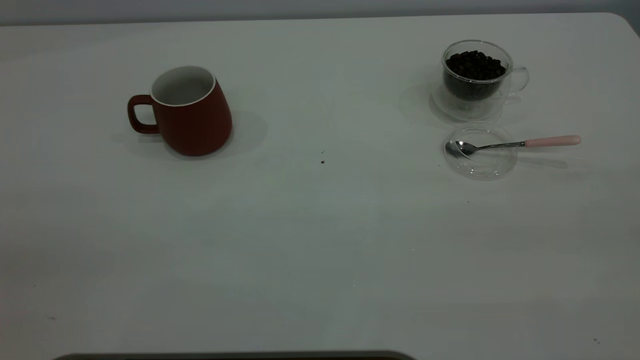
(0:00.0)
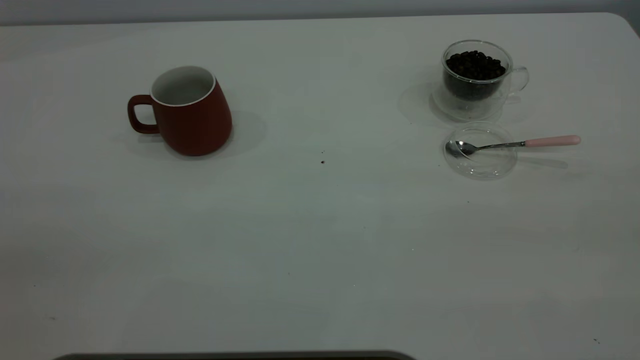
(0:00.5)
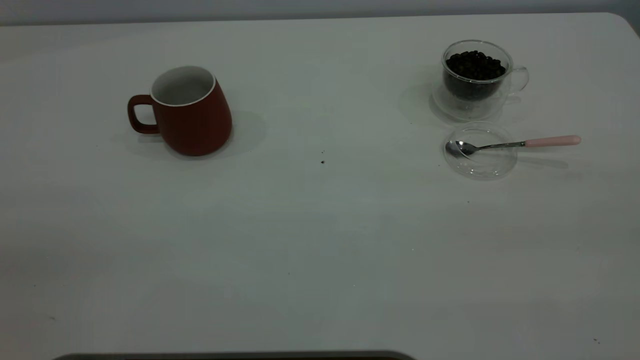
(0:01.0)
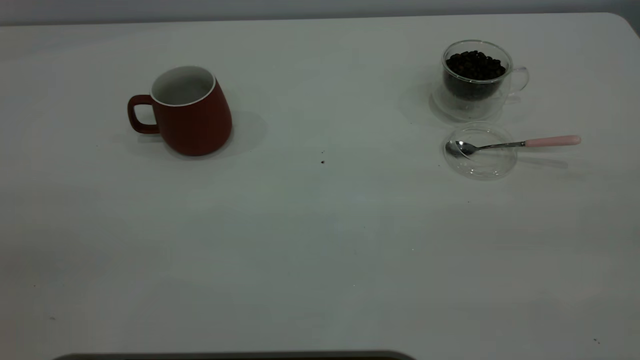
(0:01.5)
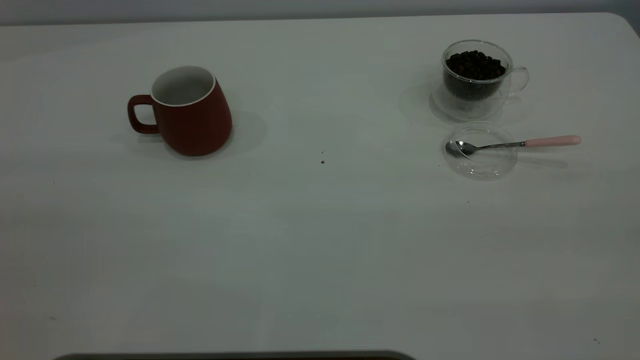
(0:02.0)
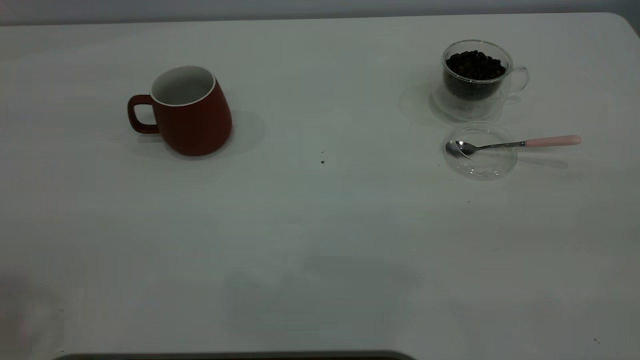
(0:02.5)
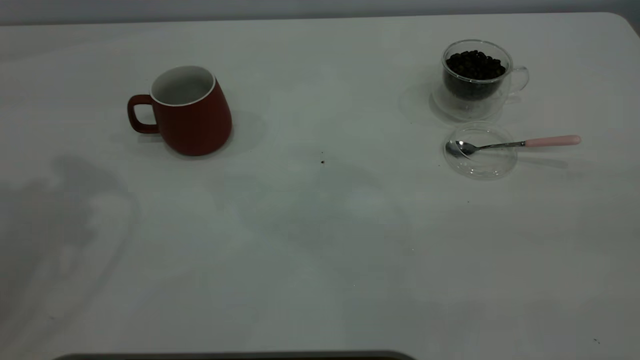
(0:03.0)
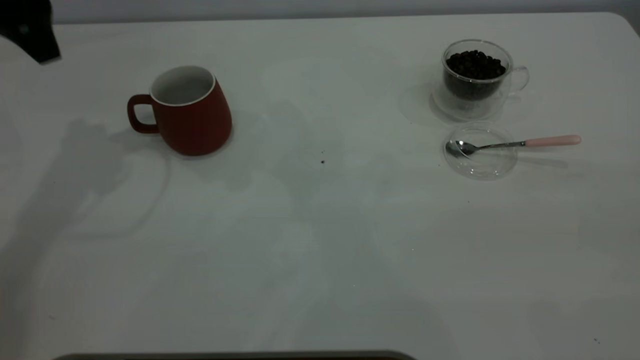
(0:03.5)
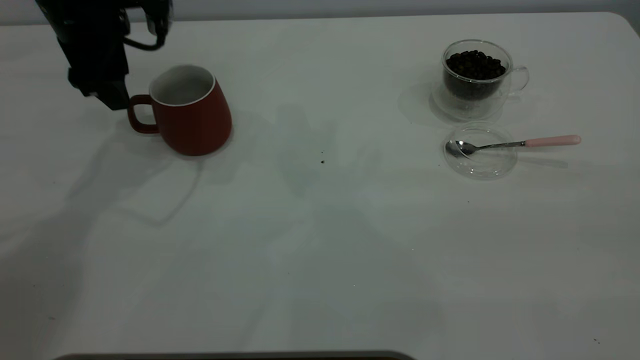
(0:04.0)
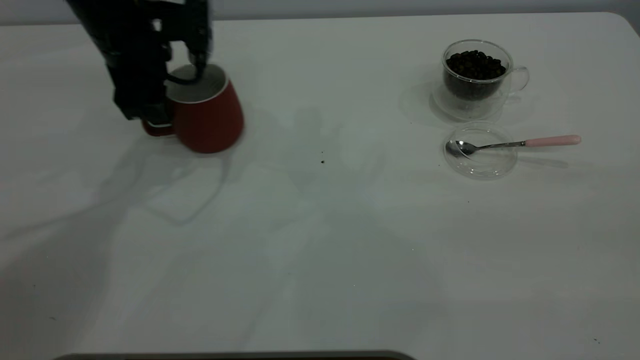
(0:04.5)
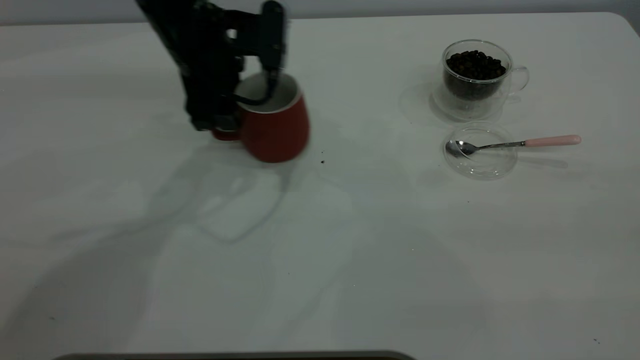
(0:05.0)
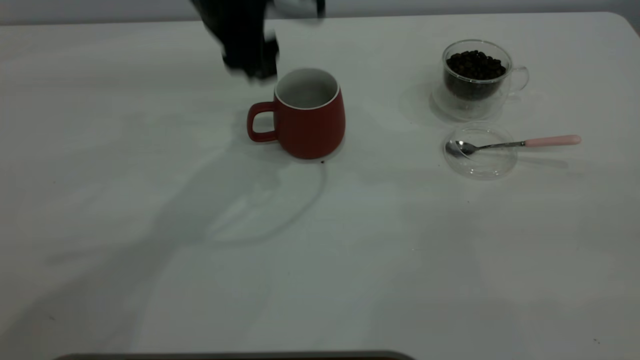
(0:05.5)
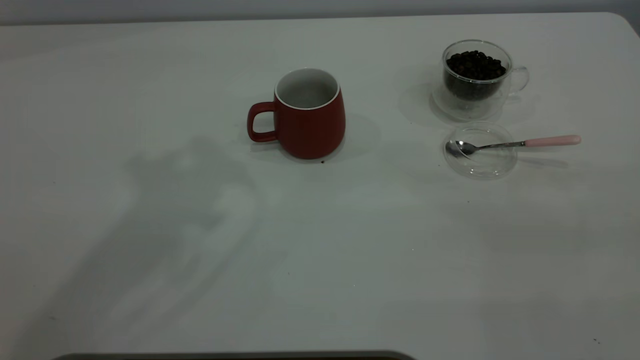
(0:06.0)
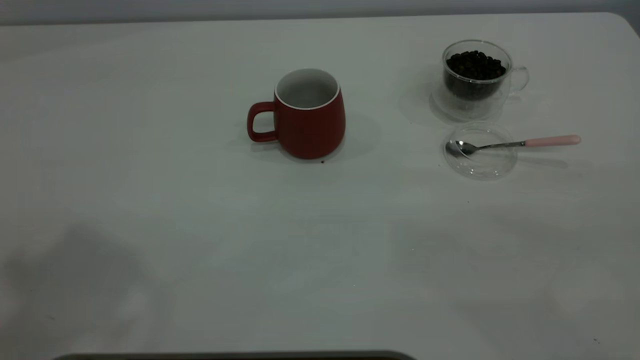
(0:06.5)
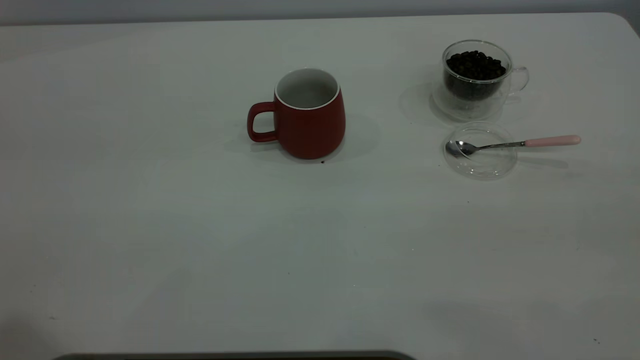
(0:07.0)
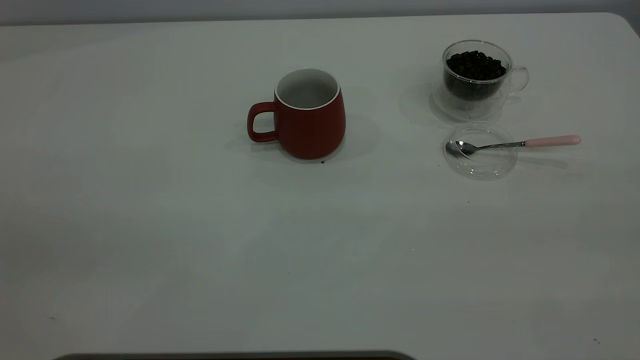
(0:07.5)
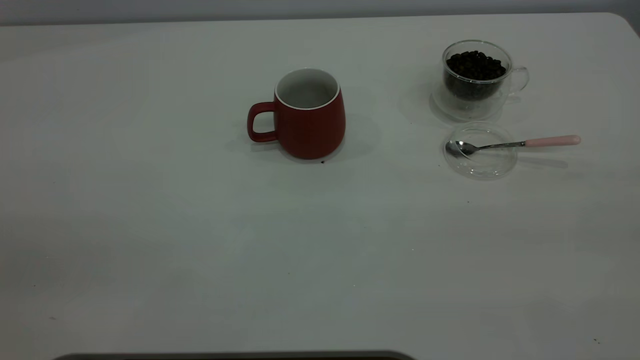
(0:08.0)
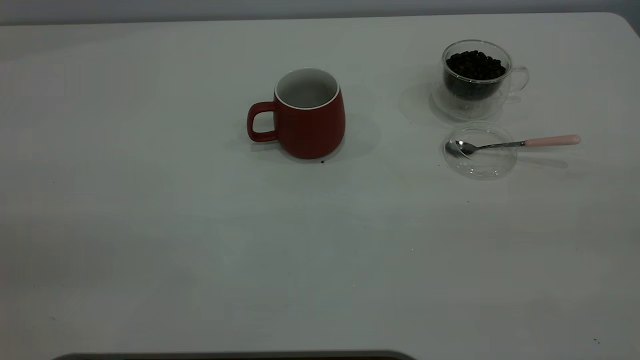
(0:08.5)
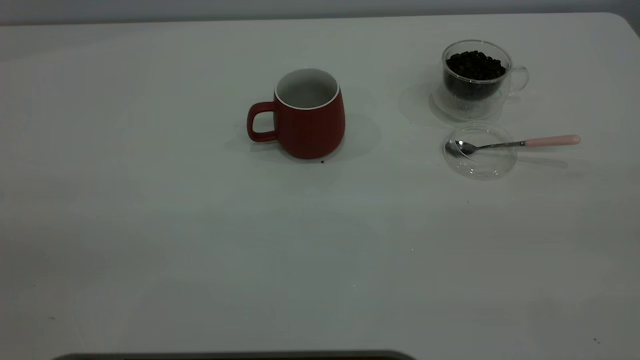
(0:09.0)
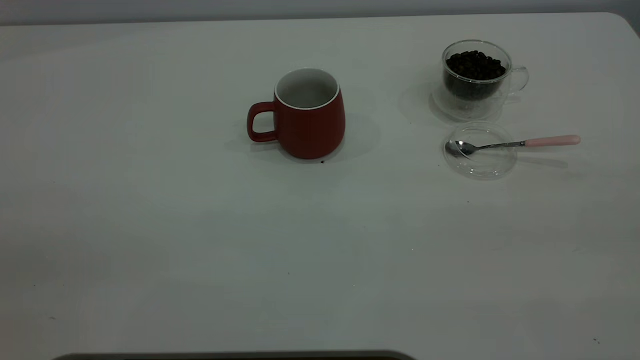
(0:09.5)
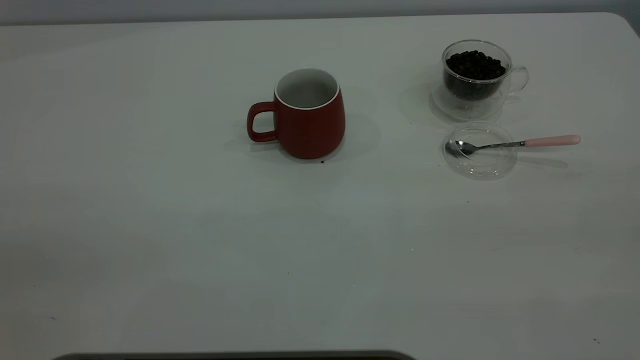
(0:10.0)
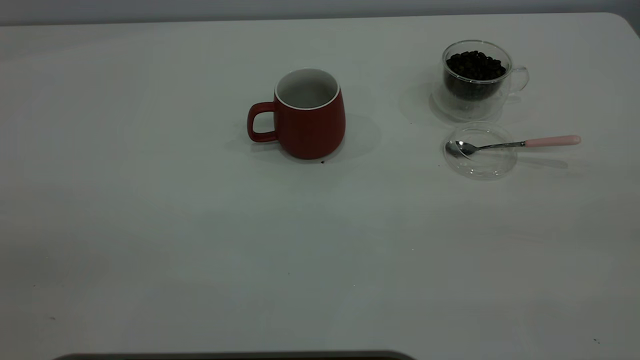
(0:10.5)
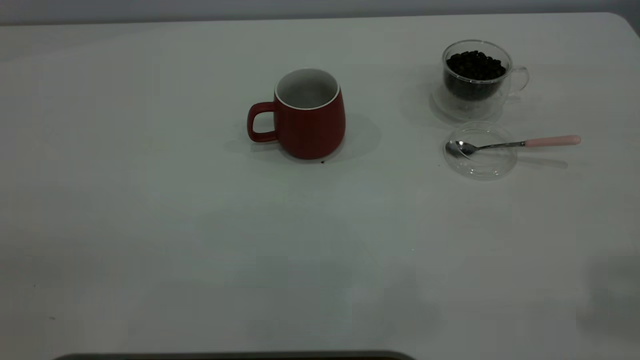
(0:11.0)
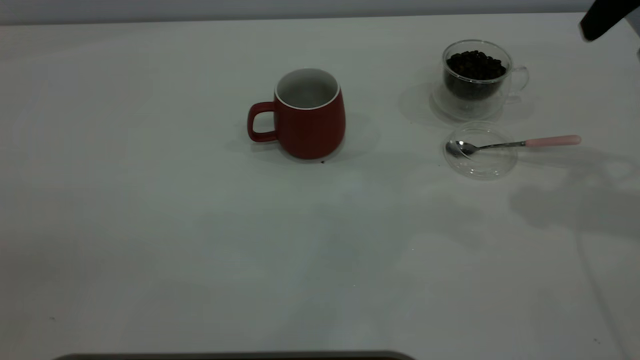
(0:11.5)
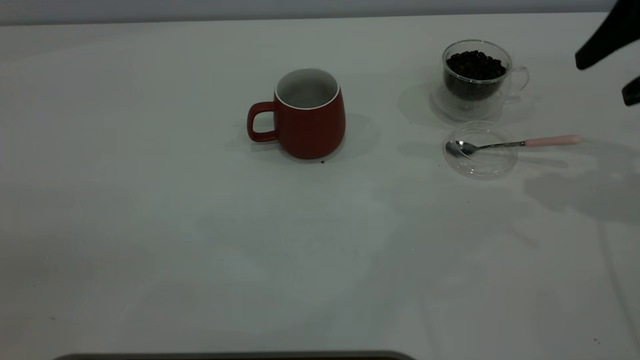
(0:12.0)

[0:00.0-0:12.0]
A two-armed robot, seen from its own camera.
Task of the whole recording: the left gripper place the red cup in the center of the table, the right gripper take the pink spoon from the cup lid and scoop out the coffee beans from the coffee cup and put them into the red cup, the right gripper put the spoon back into the cup lid.
Step, 0:00.0 to 0:05.0: Move the cup to the center of view.
0:02.0 to 0:04.0: The left gripper goes roughly 50 cm forward and downward, and opens.
0:04.0 to 0:06.0: The left gripper is displaced upward and backward by some 30 cm.
0:10.0 to 0:12.0: The right gripper shifts about 35 cm forward and downward.

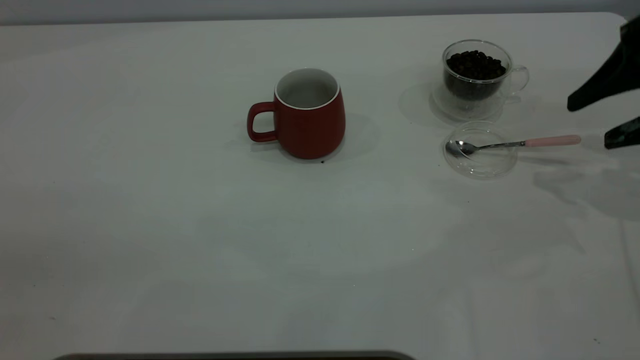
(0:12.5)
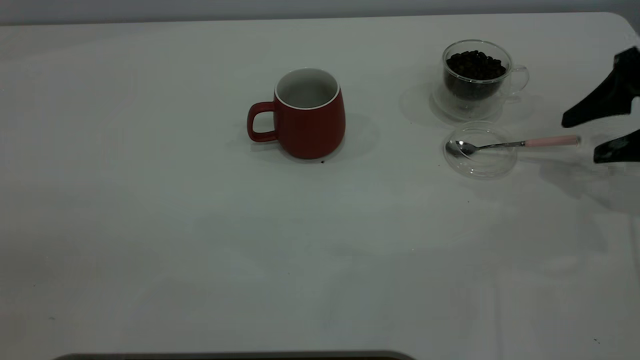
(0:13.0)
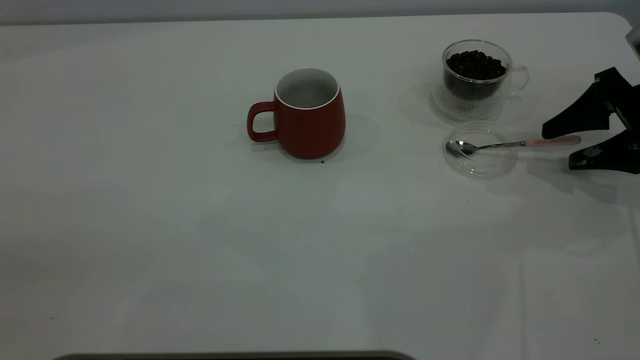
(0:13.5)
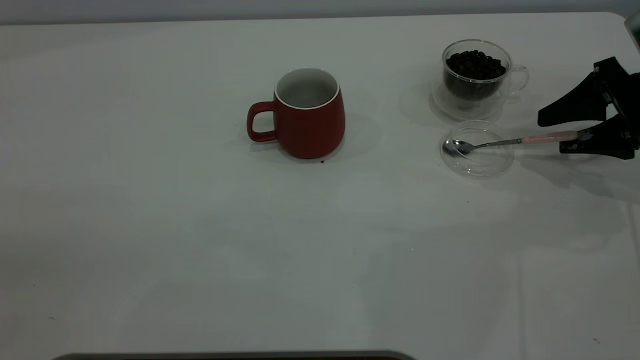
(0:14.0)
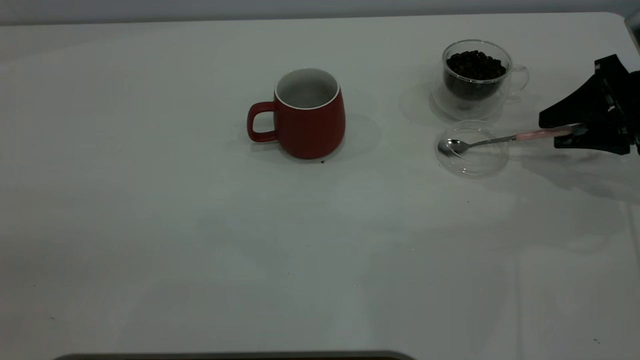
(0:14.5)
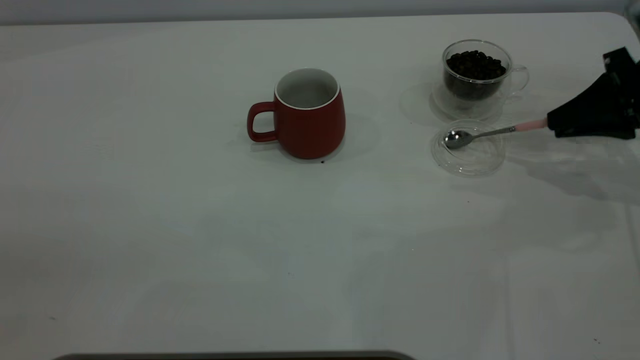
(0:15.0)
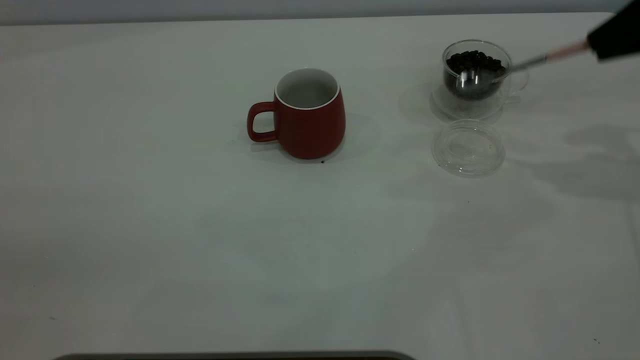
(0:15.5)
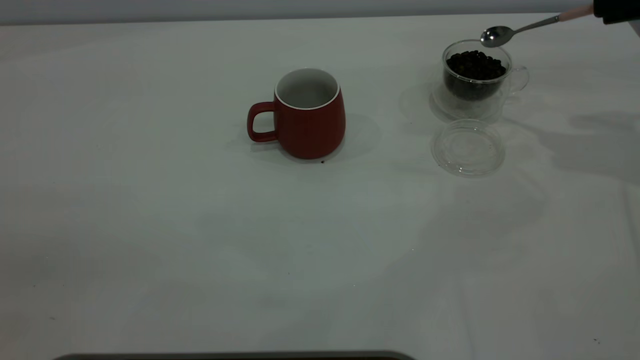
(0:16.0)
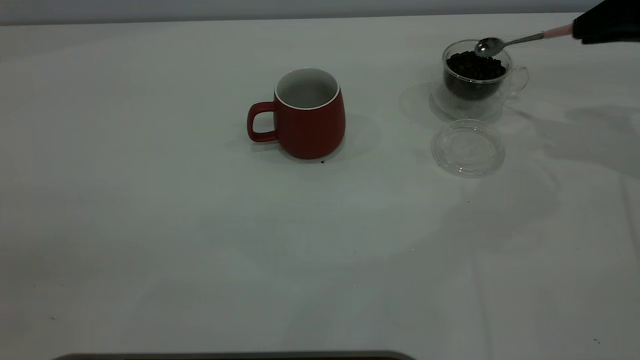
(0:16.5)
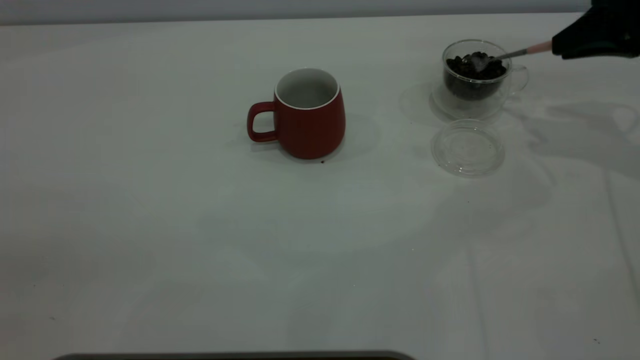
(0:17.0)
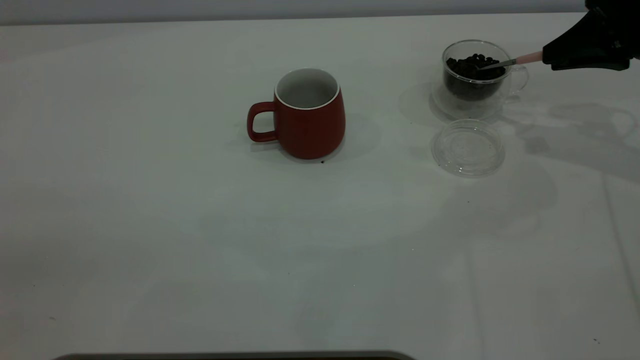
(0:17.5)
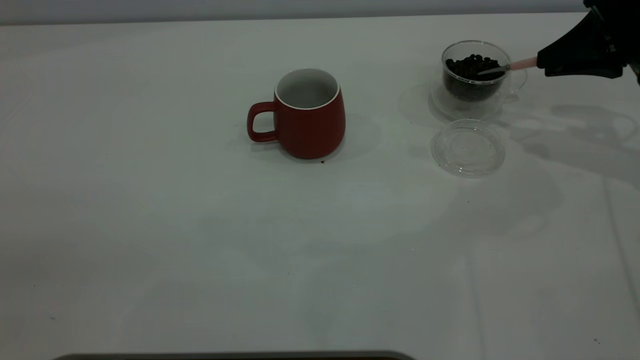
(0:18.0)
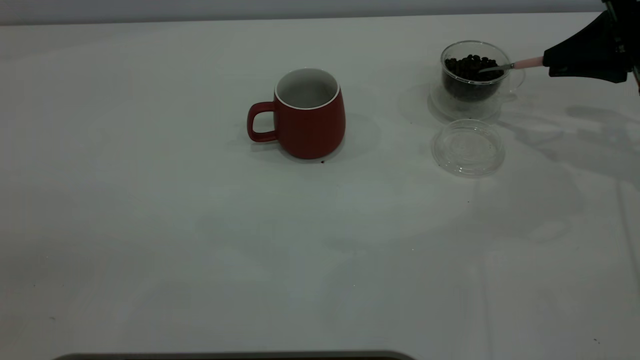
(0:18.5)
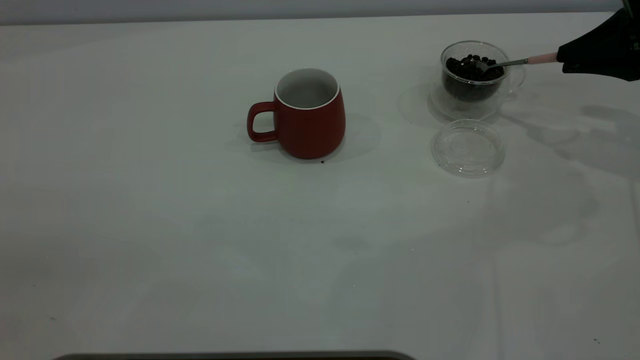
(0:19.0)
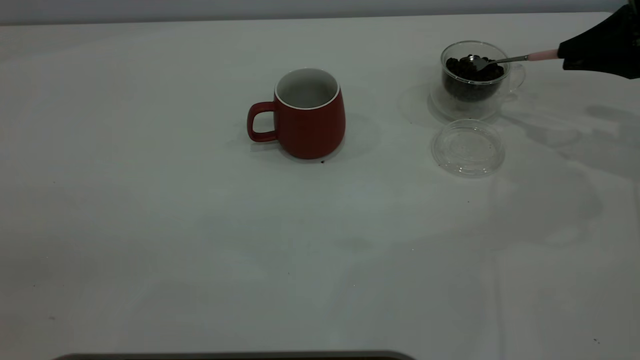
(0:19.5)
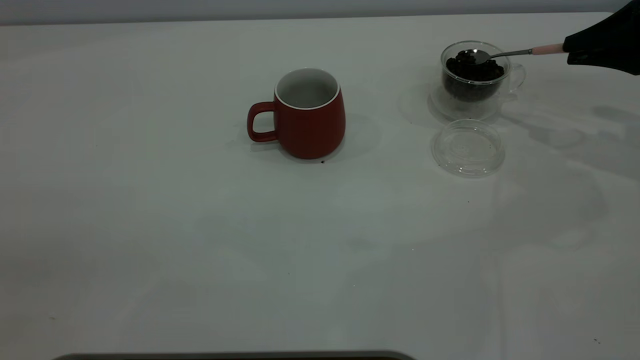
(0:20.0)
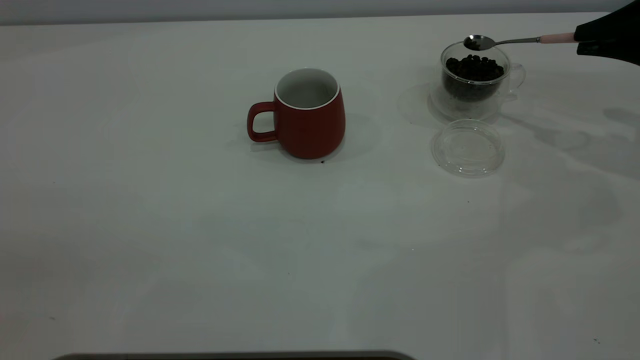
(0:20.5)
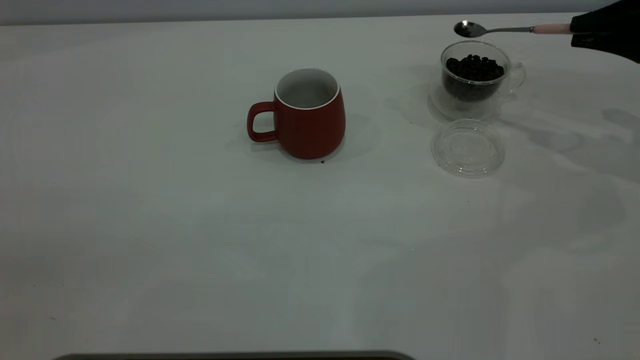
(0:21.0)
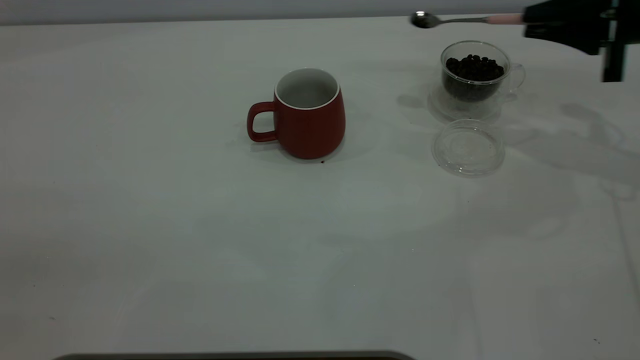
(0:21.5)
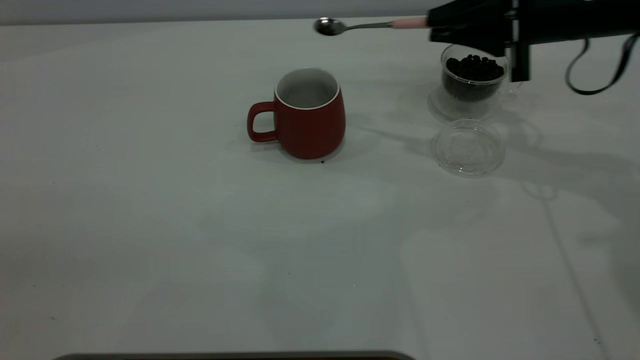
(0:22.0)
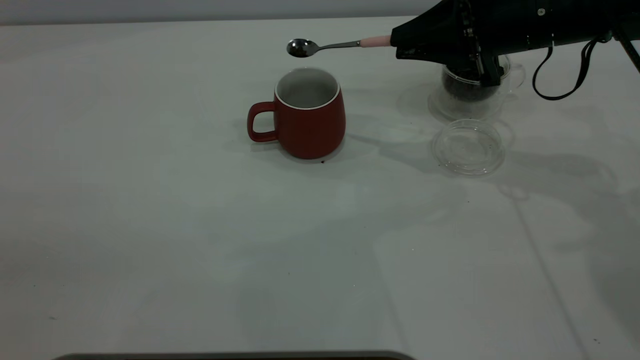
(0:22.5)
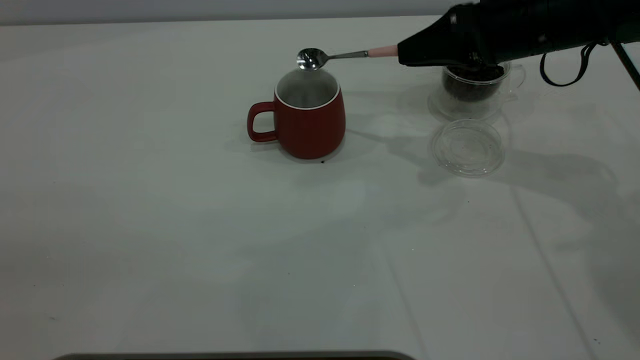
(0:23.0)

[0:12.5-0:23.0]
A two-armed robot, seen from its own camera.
Task of the whole recording: the left gripper place the red cup in the center of the table, the right gripper take the pink spoon from the cup lid and scoop out the coffee beans from the coffee cup and put them into the red cup, the right gripper put the spoon back into the cup lid.
Step, 0:12.5 to 0:15.0: Pick up the spoon.
0:12.5 to 0:14.5: The right gripper goes approximately 5 cm downward, and closes its fingers.
0:14.5 to 0:16.5: The right gripper shifts roughly 10 cm upward, and closes its fingers.
0:19.0 to 0:21.0: The grippers stay close to where they were, moving slightly.
0:21.0 to 0:23.0: The right gripper shifts some 15 cm to the left.
